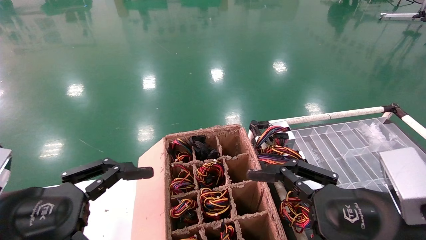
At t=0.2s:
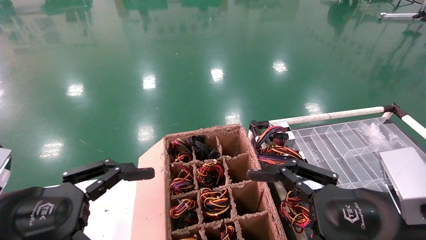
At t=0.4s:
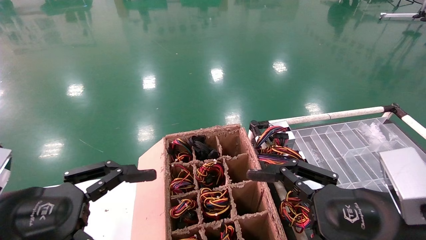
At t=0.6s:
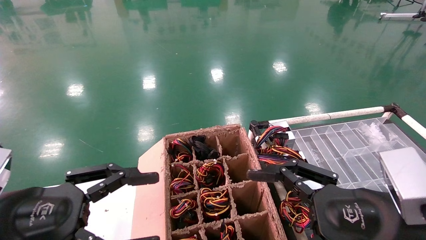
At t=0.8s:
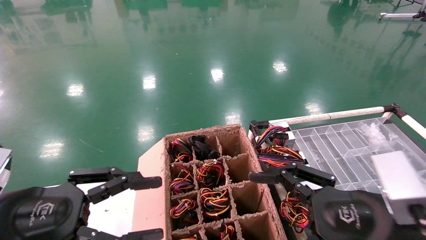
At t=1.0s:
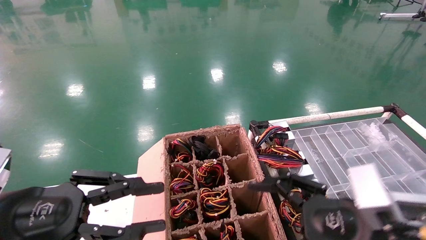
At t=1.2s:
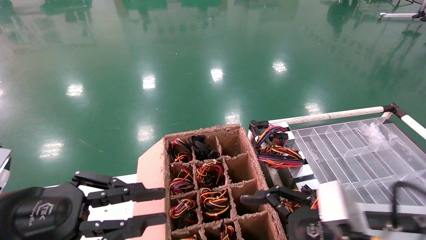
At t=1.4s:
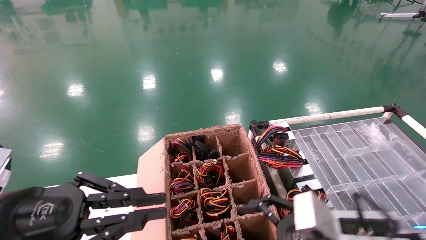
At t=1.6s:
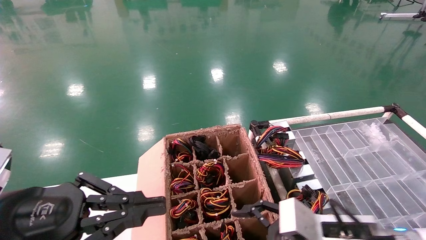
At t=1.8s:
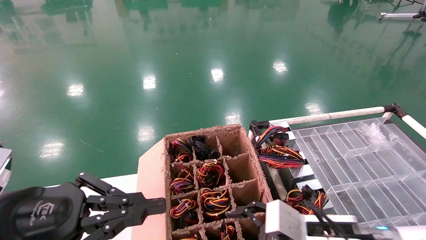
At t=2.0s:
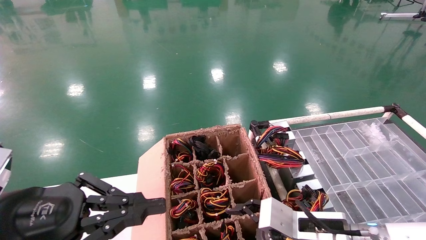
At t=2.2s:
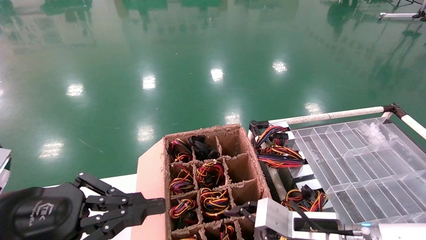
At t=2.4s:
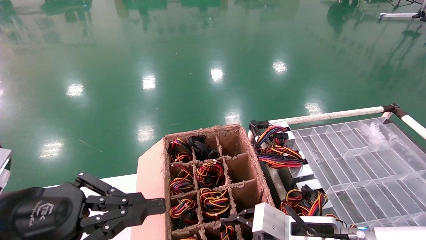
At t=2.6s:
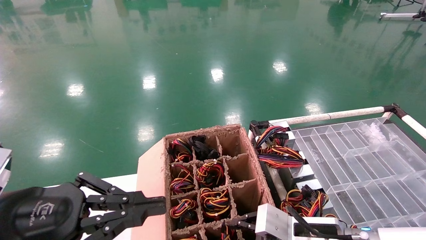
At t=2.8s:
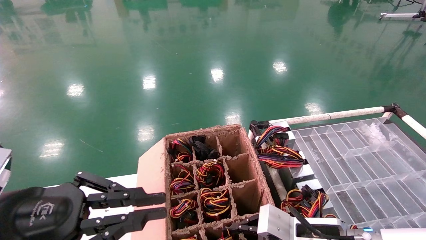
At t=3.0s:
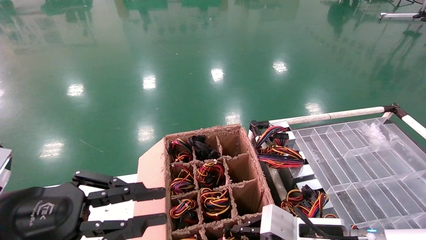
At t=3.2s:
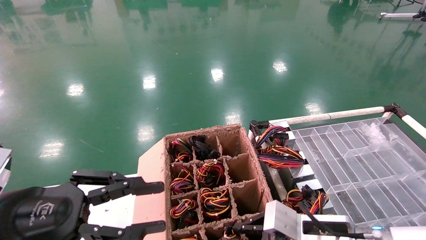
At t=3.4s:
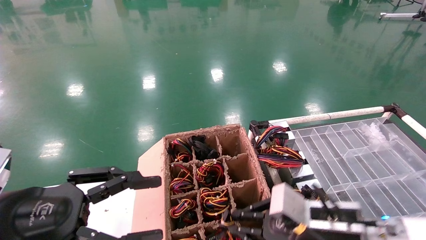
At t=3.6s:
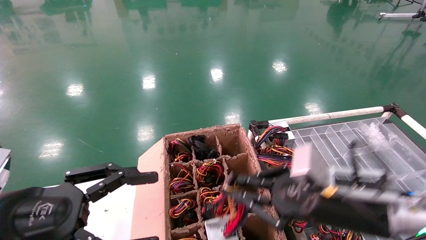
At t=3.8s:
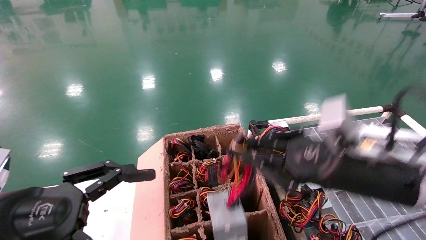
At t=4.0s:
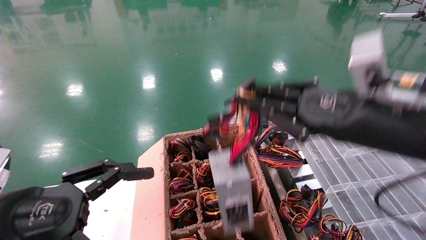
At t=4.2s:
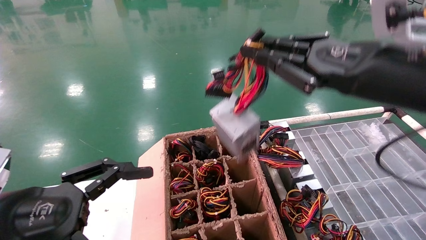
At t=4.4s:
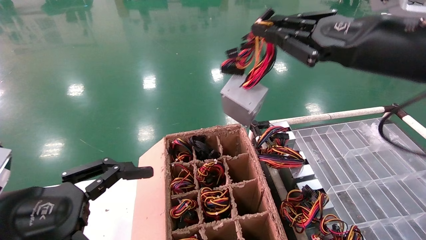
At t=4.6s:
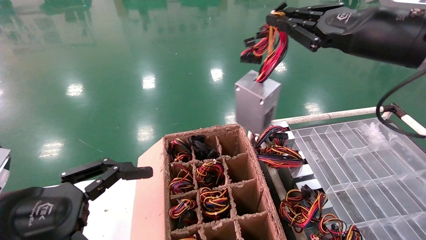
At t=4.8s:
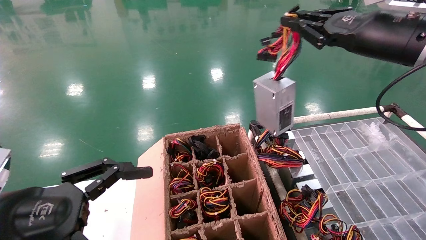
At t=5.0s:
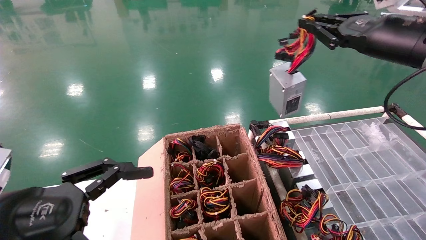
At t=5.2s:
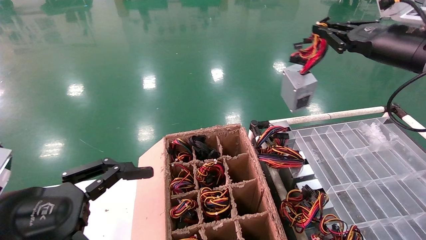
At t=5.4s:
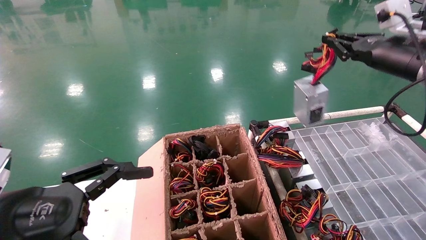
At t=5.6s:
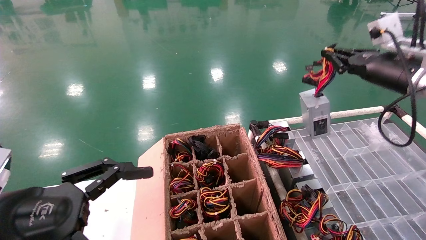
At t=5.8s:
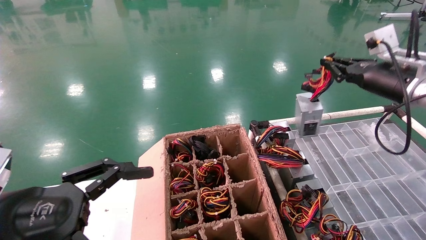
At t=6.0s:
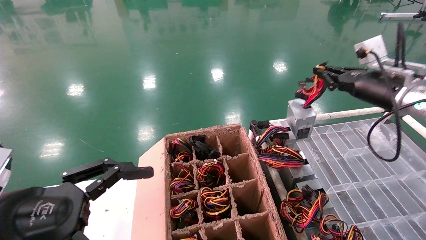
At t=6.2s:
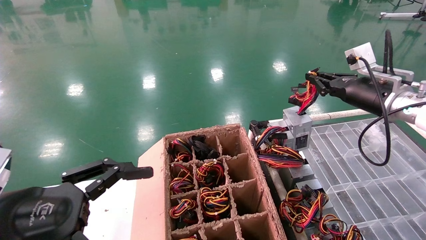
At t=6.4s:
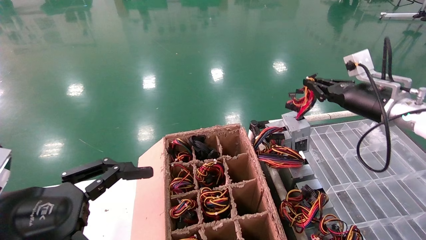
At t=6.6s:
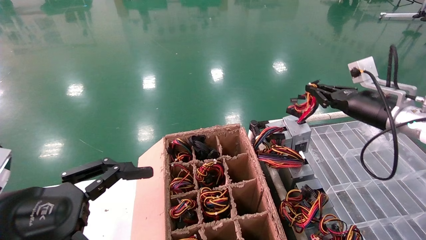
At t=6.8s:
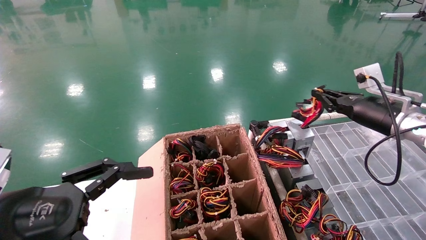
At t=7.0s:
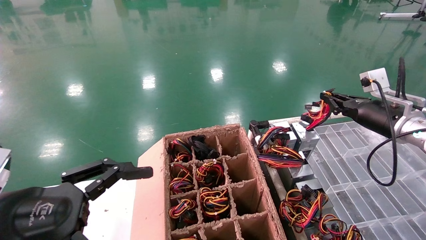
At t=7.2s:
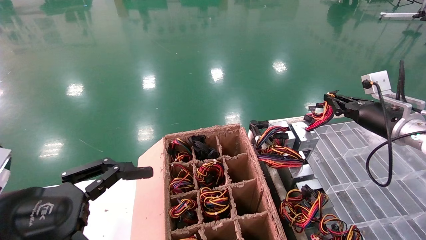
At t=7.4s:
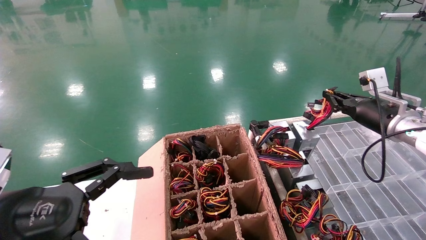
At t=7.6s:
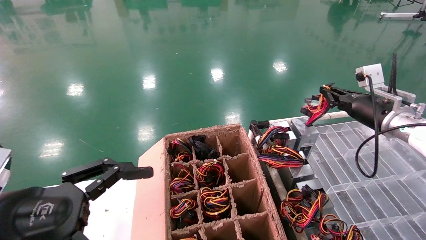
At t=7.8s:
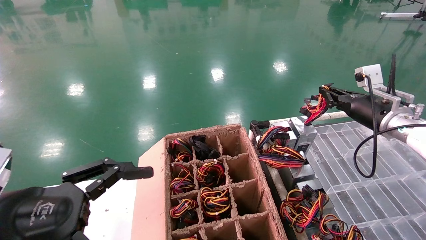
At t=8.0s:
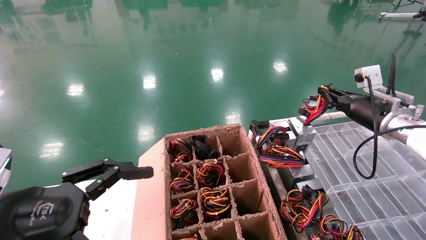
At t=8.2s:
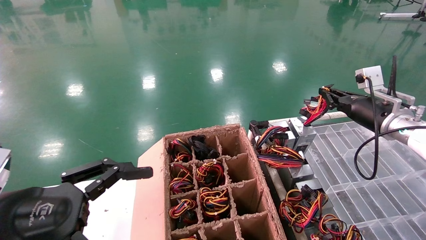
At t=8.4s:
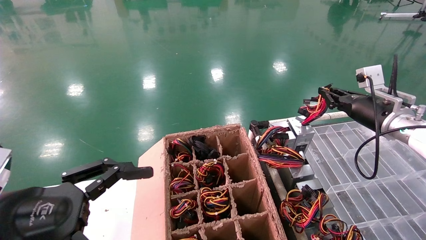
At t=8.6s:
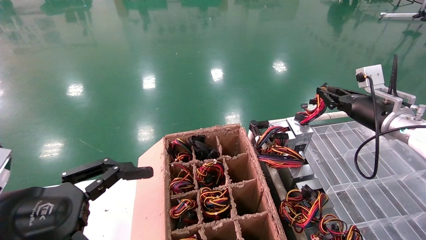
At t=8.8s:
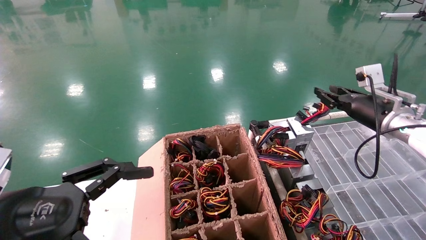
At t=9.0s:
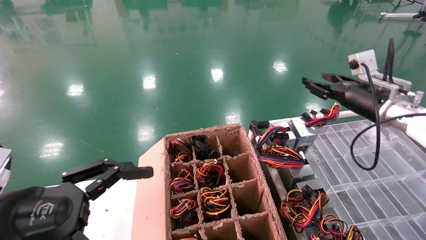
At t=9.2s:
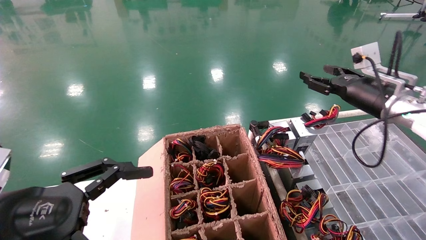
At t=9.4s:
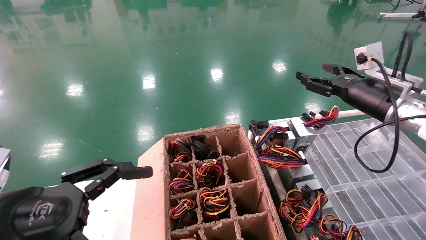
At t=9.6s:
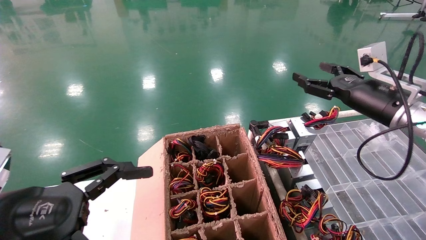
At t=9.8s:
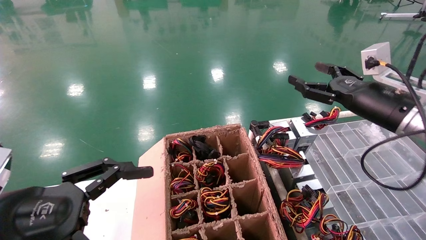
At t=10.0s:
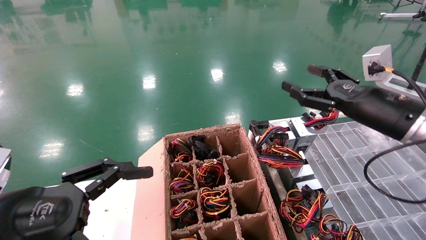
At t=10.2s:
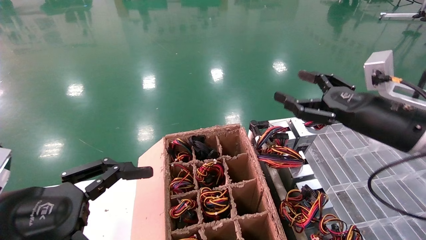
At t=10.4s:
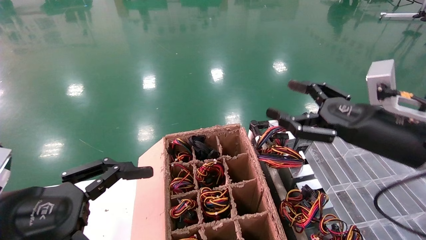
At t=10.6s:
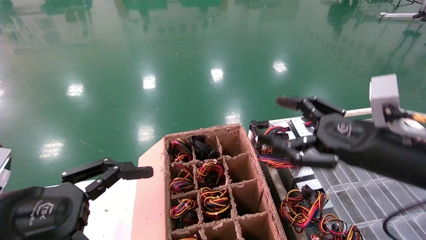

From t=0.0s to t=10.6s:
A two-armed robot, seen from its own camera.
Step, from t=1.6s to t=3.2s: Grab and lift the power supply from the large box.
Step, from t=3.4s to t=8.4s: Place the power supply on the operating table.
From t=0.0s to t=1.6s: The right gripper goes some 10 cm downward and forward. The left gripper closes.
From t=1.6s to t=3.0s: The right gripper closes its fingers.
From t=3.0s to t=4.6s: The left gripper opens; the right gripper goes some 30 cm upward.
From t=4.6s to t=6.0s: The right gripper heads forward, downward and to the right, covering about 15 cm.
From t=6.0s to t=7.6s: The right gripper travels downward by roughly 5 cm.
From t=7.6s to t=9.0s: The right gripper opens up.
From t=9.0s to t=10.6s: The right gripper shifts roughly 20 cm backward and to the left, and opens.
